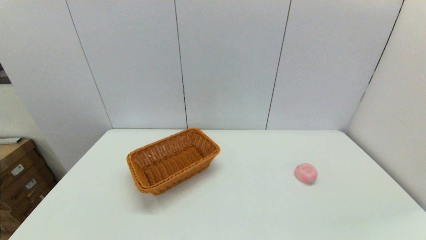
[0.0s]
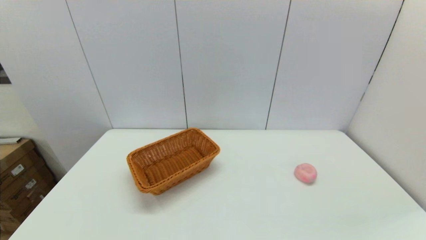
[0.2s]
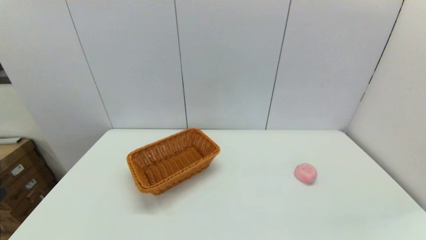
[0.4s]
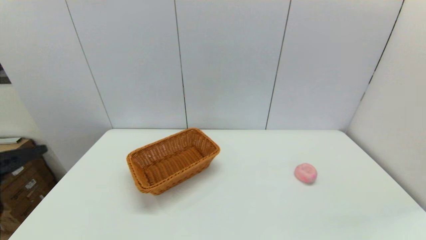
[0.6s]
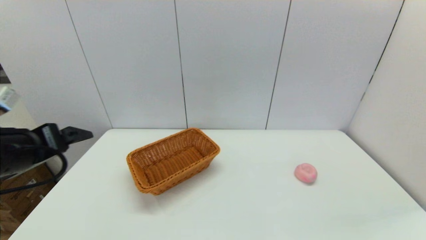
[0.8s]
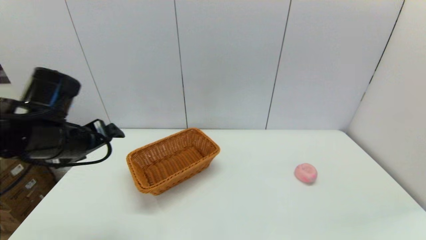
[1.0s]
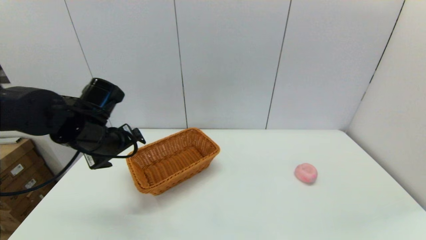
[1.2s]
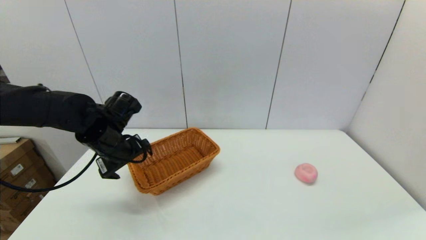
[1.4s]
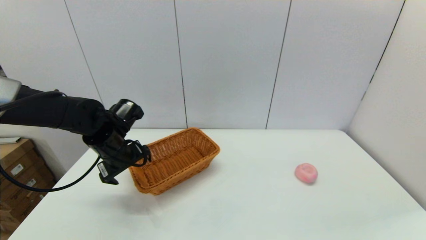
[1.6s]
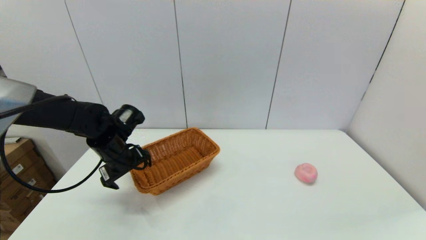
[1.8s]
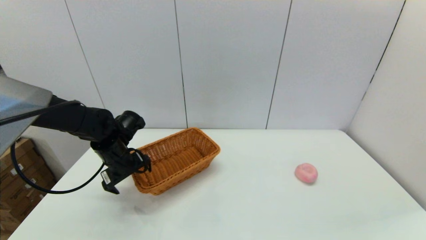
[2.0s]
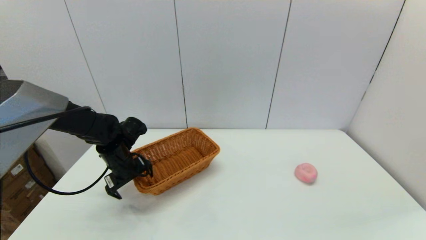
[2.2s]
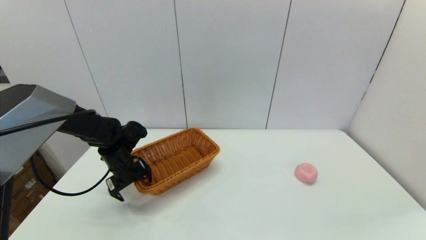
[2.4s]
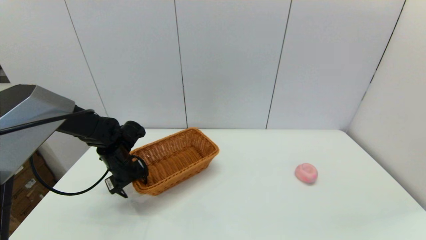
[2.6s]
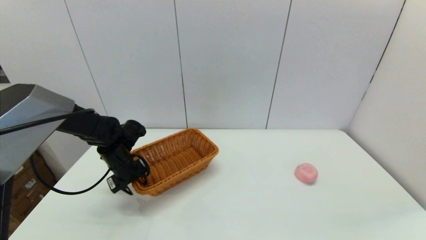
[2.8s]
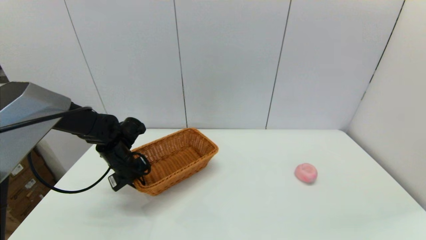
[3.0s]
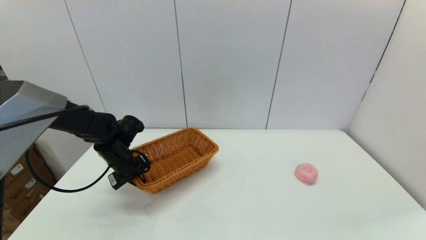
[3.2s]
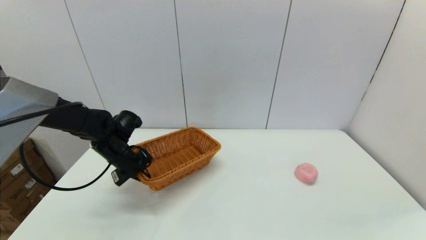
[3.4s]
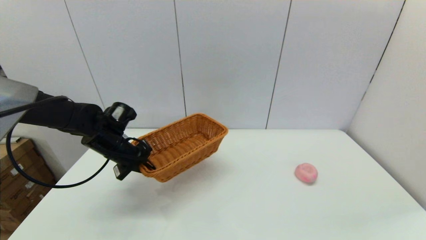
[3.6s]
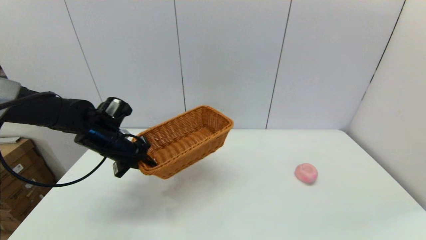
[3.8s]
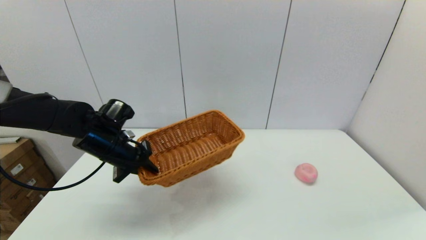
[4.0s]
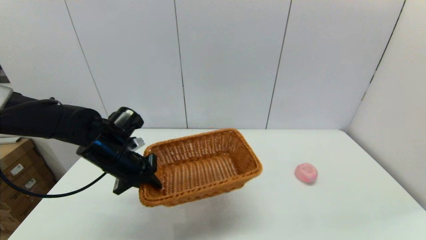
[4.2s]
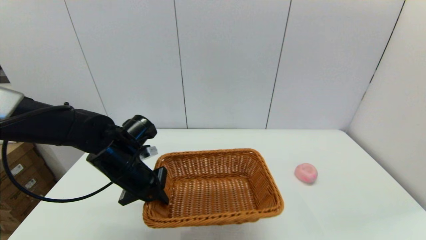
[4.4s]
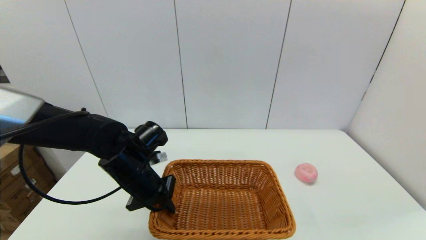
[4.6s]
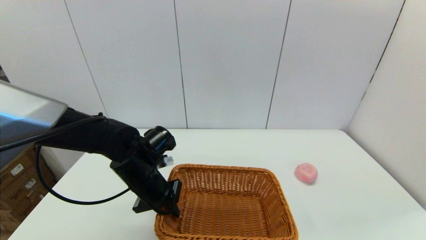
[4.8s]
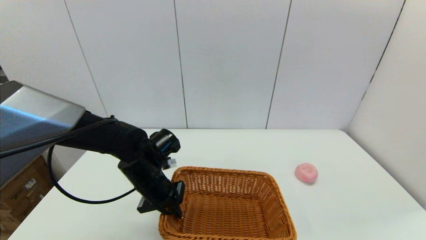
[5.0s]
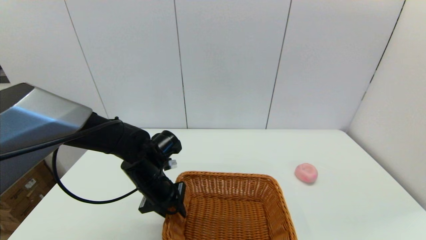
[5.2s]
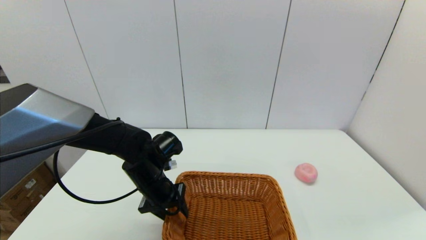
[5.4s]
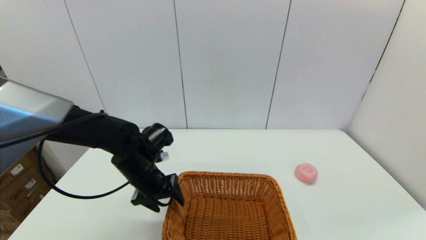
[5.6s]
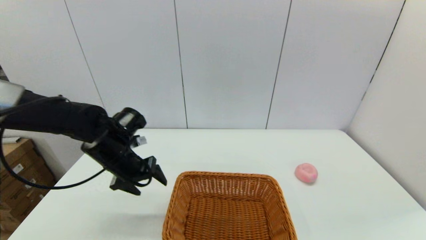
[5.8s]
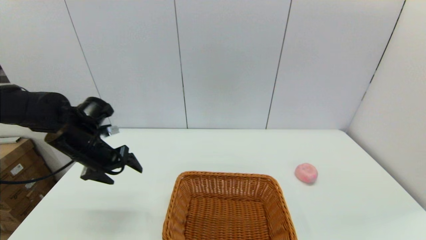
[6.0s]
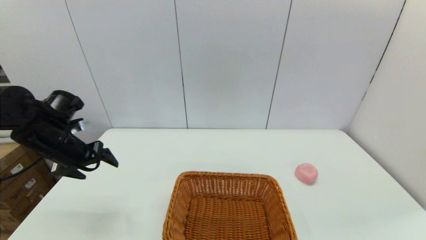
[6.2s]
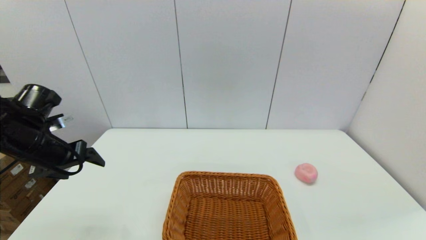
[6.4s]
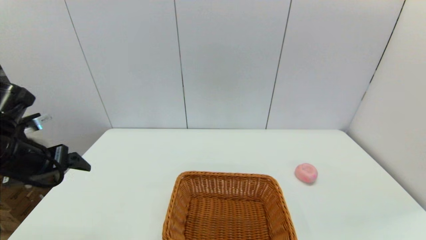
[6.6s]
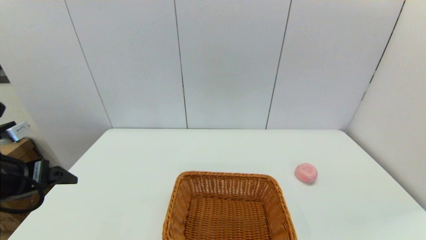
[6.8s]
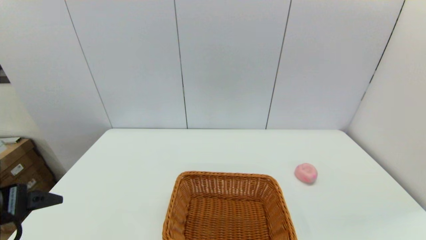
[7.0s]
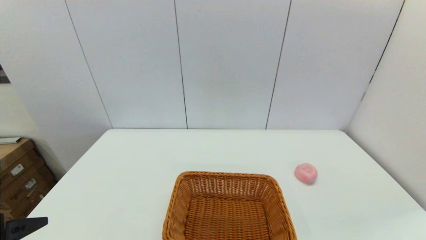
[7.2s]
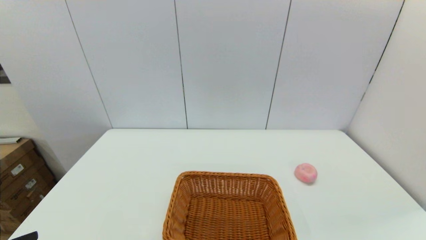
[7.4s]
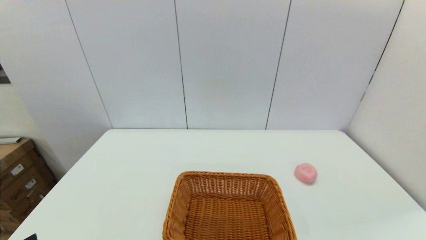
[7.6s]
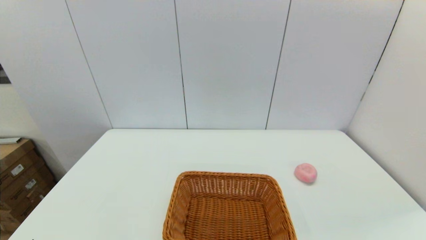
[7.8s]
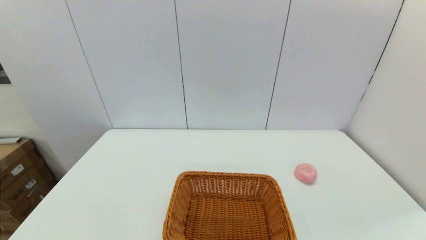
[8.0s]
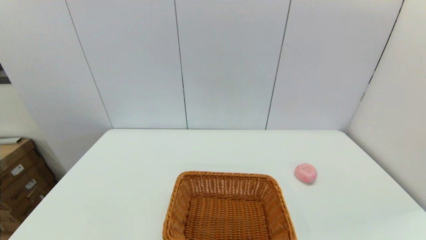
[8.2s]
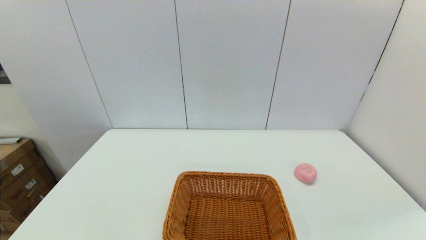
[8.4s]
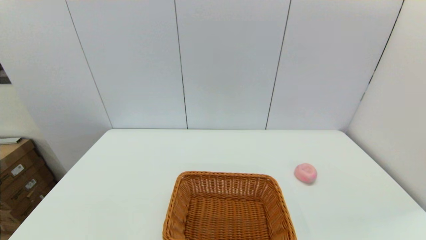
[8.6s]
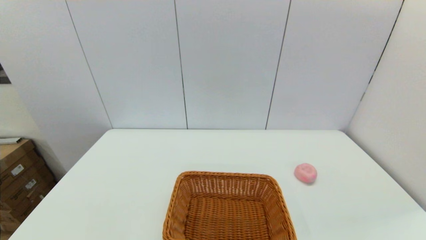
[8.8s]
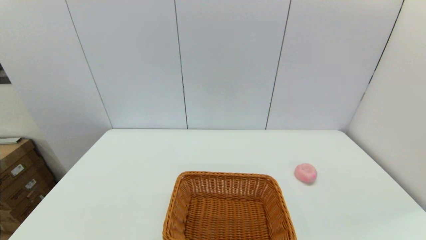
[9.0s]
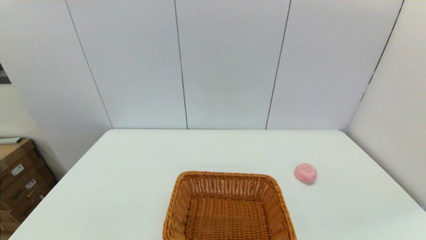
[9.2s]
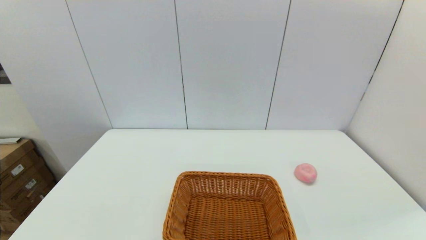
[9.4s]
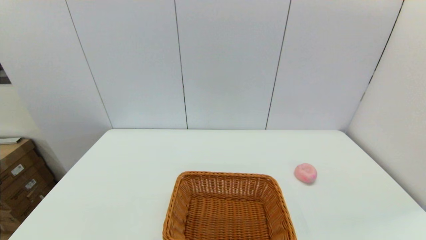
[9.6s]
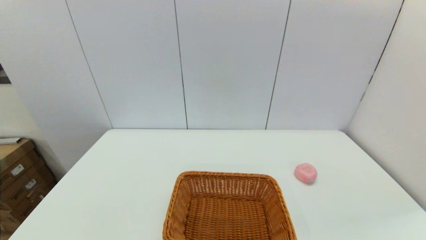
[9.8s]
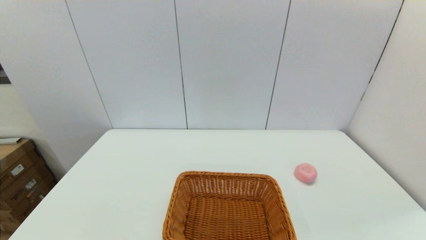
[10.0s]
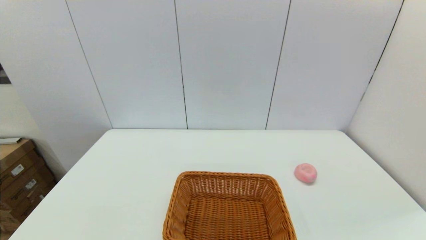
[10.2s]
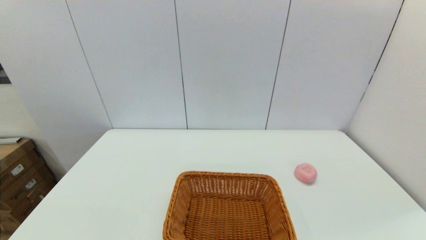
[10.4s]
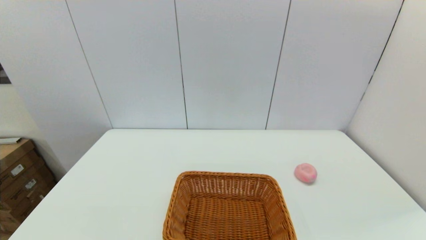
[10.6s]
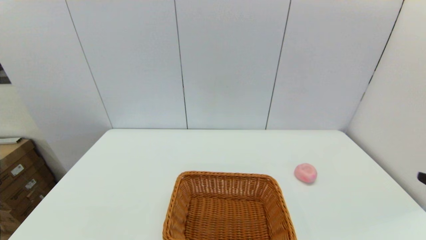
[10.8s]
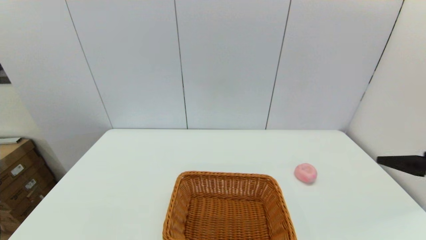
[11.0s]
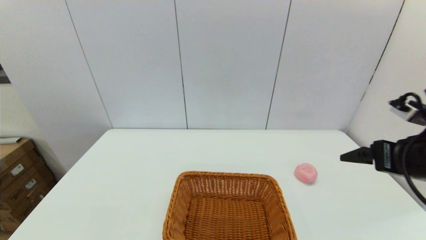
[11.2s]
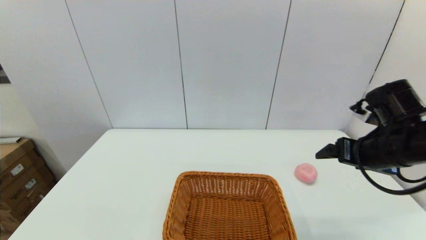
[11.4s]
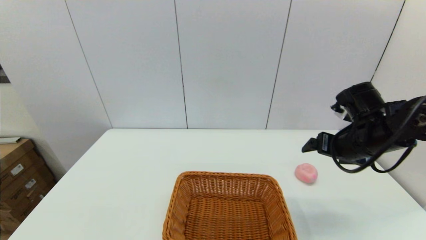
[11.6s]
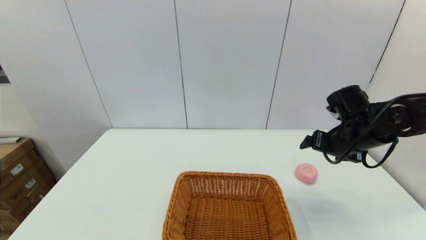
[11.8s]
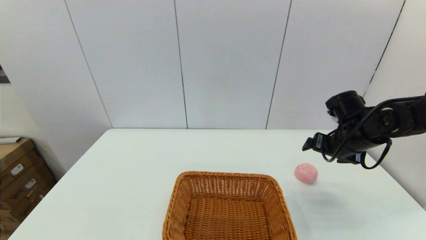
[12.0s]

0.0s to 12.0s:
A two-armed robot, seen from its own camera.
Step, 0.0s to 3.2s: Grasp the light basket with the left gripper.
Step, 3.4s to 5.2s: Place the light basket on the middle of the table with the left gripper.
0.0s to 1.6s: The left gripper goes approximately 35 cm forward.
1.6s to 3.0s: The left gripper goes about 5 cm downward, and closes up.
3.0s to 4.4s: The left gripper goes roughly 10 cm backward, to the right and upward.
4.4s to 6.0s: The left gripper is displaced to the left by roughly 10 cm, and opens.
6.0s to 7.6s: The left gripper travels backward by some 30 cm.
10.4s to 12.0s: The right gripper goes approximately 35 cm forward.

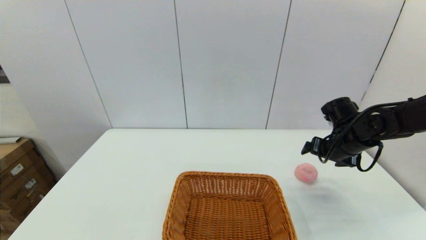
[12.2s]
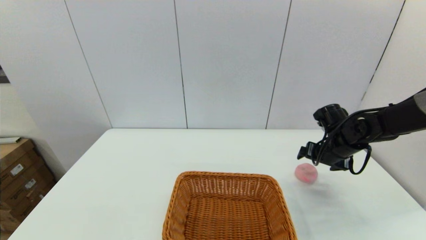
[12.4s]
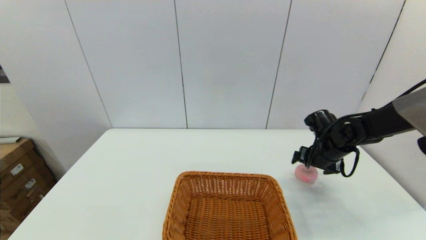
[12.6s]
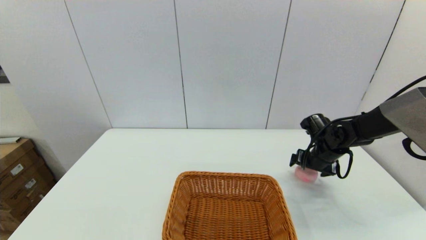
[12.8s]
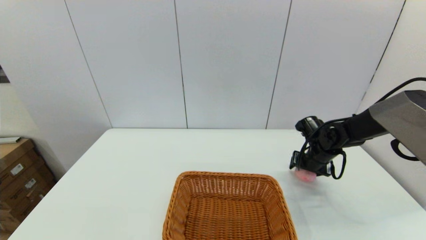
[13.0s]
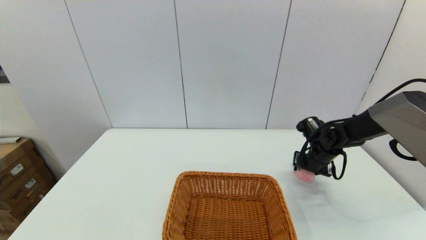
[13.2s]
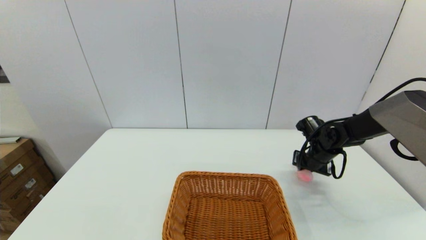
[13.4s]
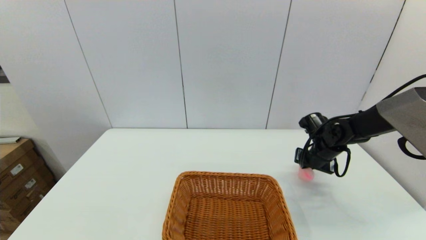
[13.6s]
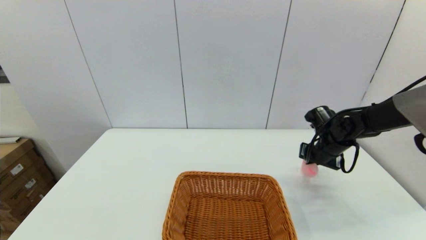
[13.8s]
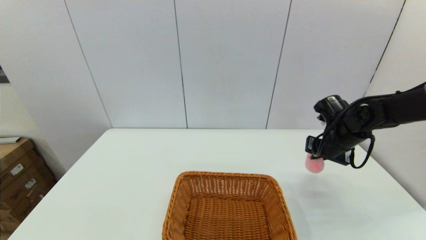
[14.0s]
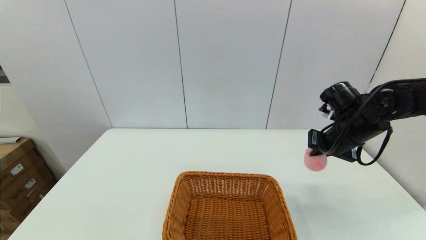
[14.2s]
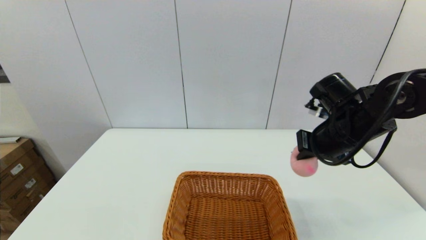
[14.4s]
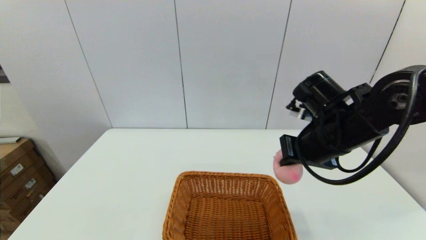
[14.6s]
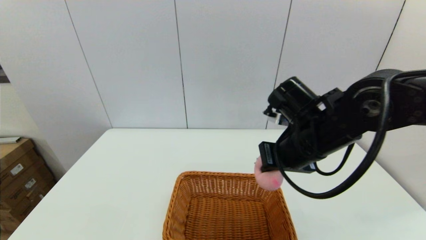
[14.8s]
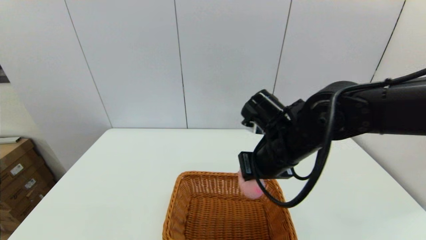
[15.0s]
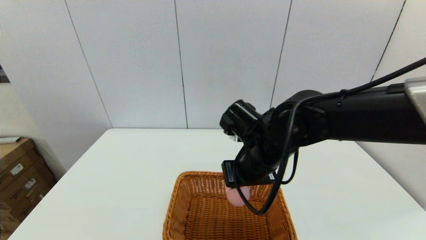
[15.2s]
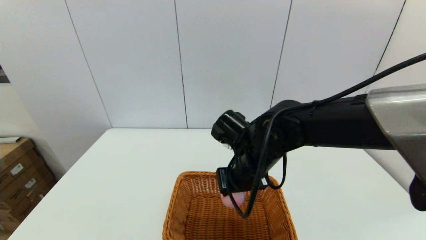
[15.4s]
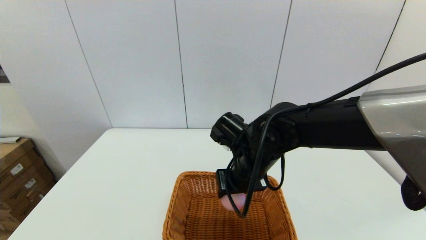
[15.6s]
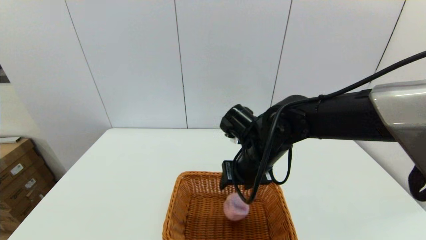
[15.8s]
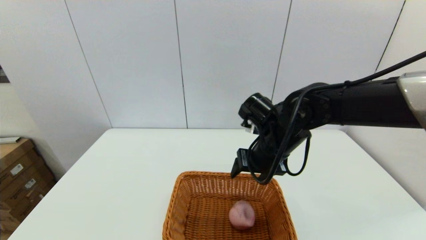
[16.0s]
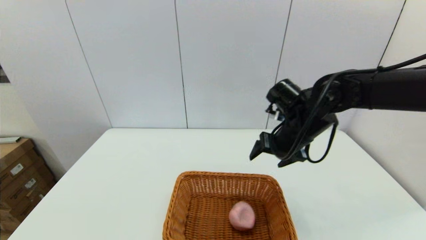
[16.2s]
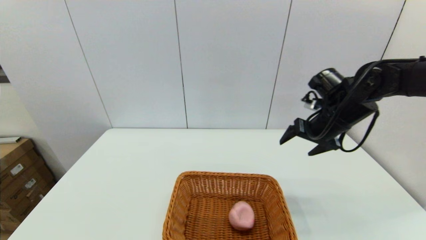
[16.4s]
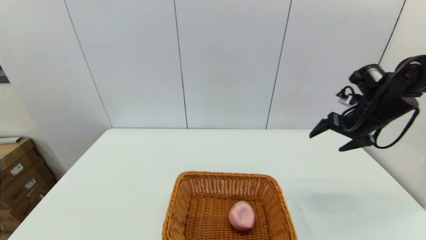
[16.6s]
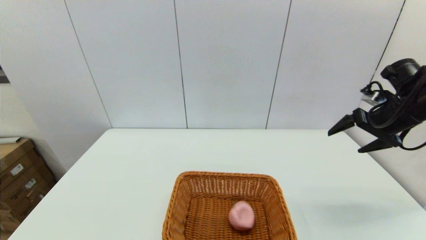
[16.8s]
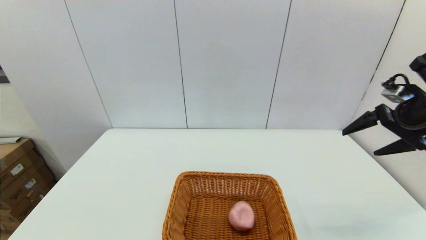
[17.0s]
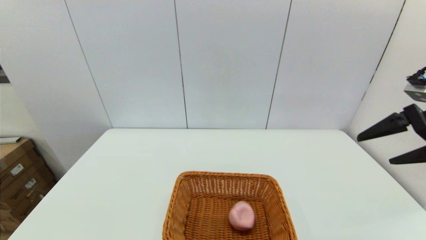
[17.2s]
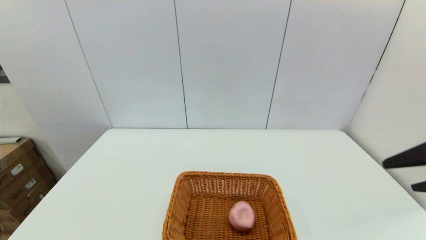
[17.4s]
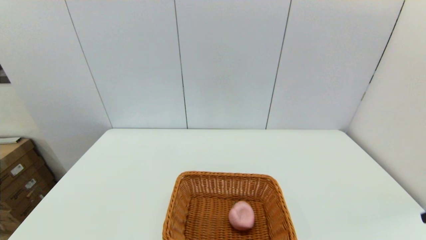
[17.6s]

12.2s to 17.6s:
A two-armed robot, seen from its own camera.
Step, 13.6s to 15.6s: Place the peach into the light basket with the right gripper.
12.2s to 13.6s: The right gripper shifts about 5 cm downward, and closes its fingers.
13.6s to 15.0s: The right gripper heads to the left, backward and upward, covering roughly 25 cm.
15.0s to 16.2s: The right gripper travels to the right and forward by roughly 10 cm, and opens.
16.2s to 17.6s: The right gripper is displaced backward and to the right by roughly 30 cm.
